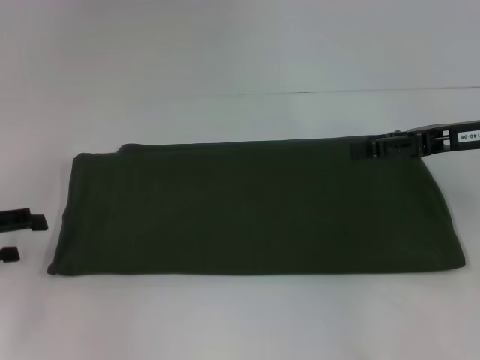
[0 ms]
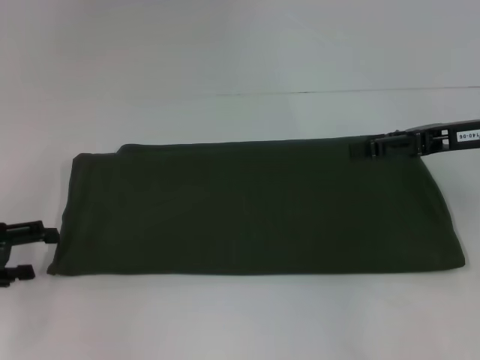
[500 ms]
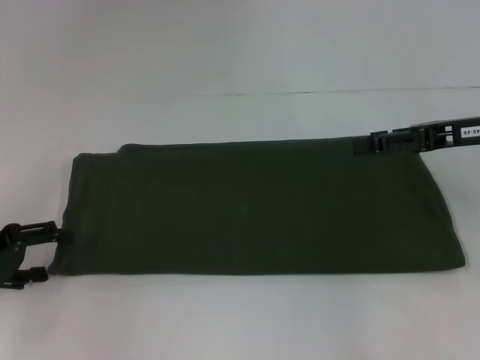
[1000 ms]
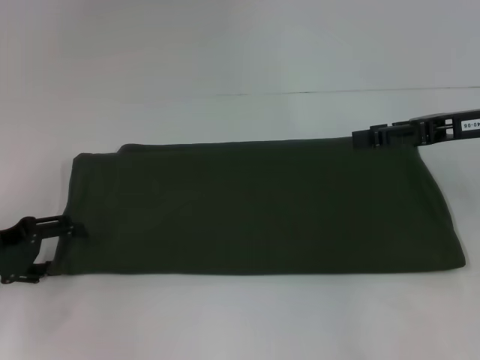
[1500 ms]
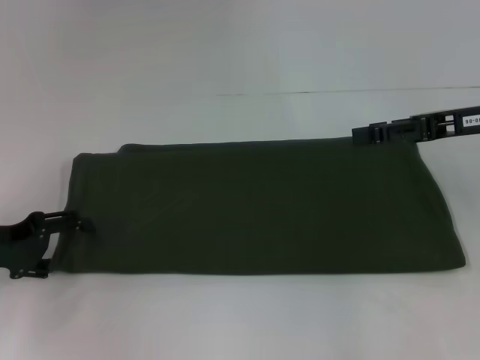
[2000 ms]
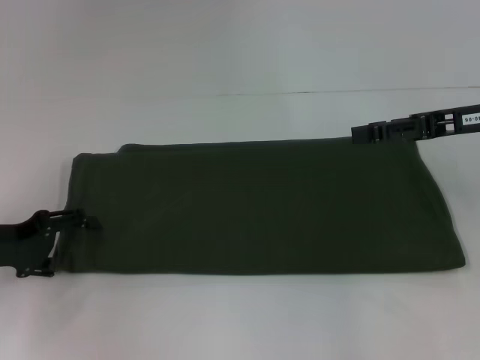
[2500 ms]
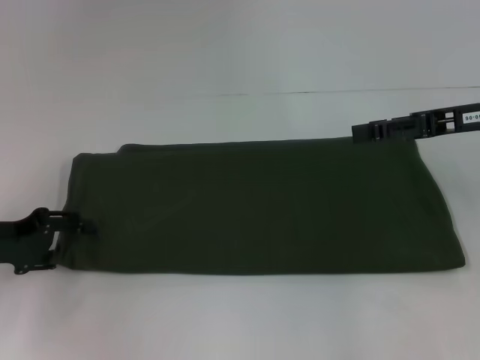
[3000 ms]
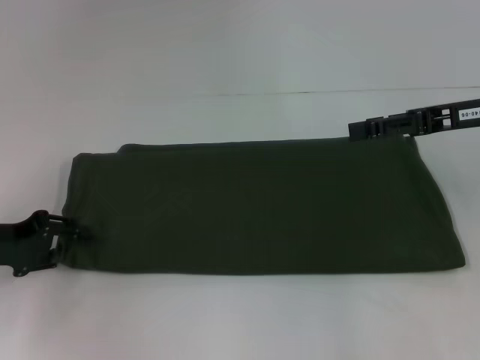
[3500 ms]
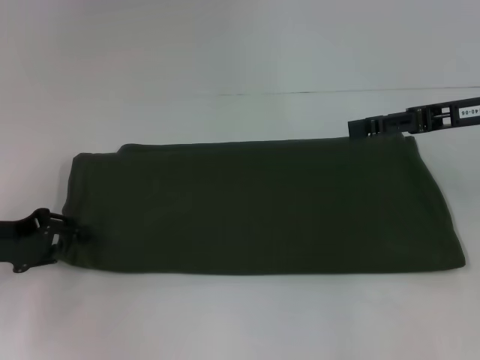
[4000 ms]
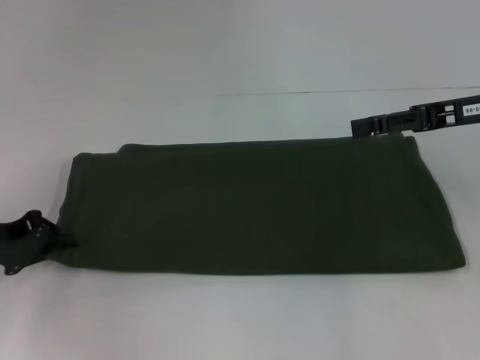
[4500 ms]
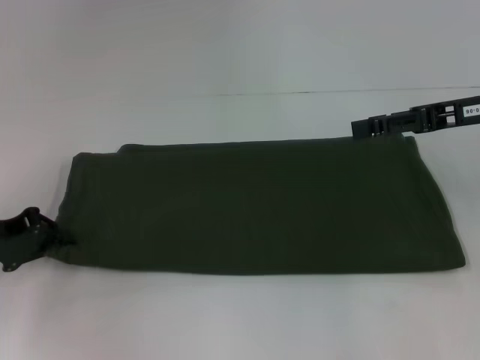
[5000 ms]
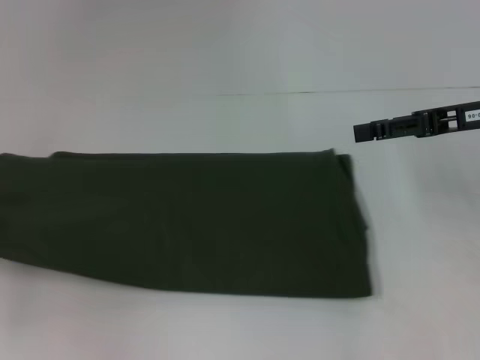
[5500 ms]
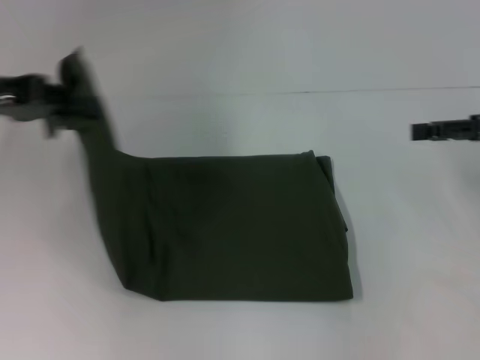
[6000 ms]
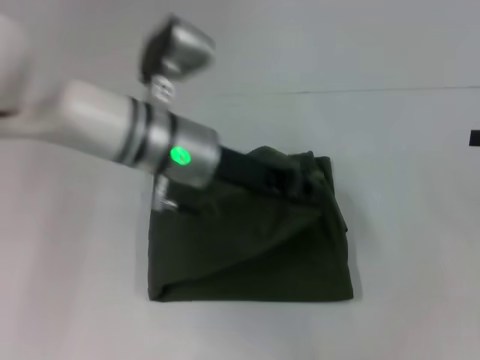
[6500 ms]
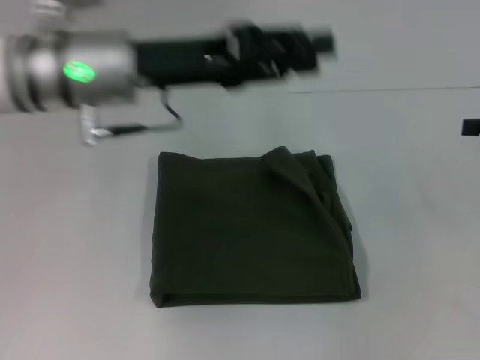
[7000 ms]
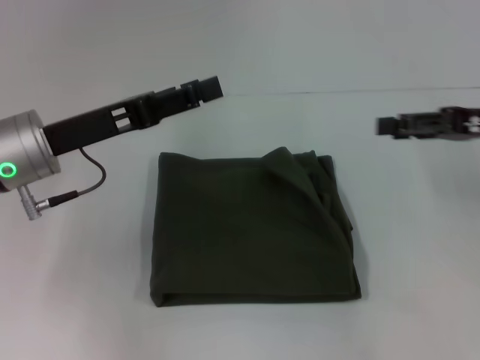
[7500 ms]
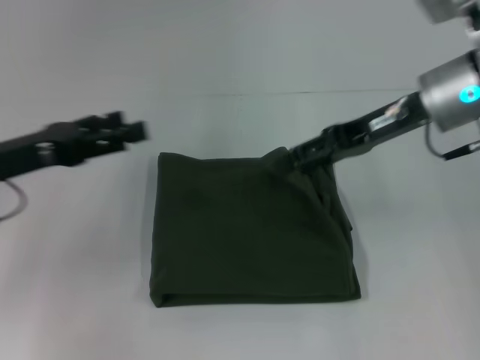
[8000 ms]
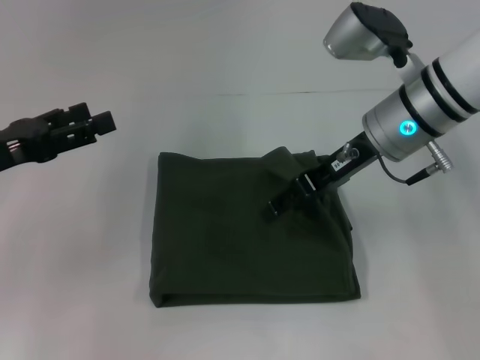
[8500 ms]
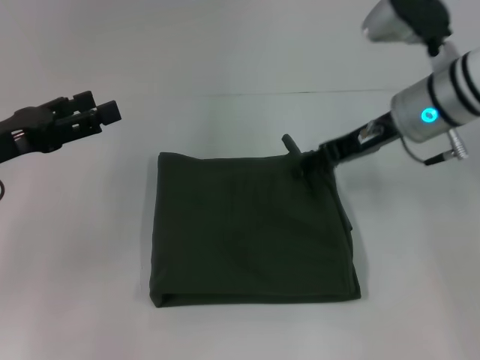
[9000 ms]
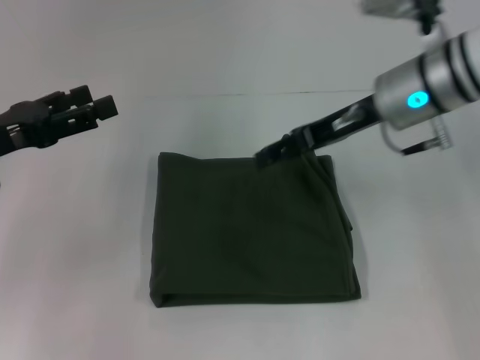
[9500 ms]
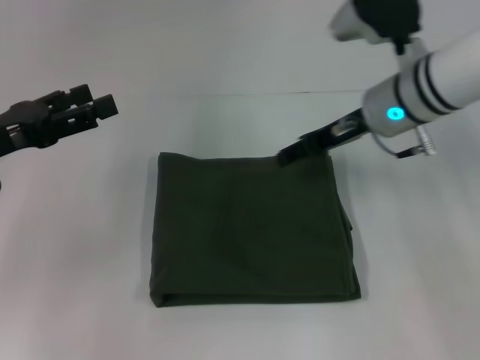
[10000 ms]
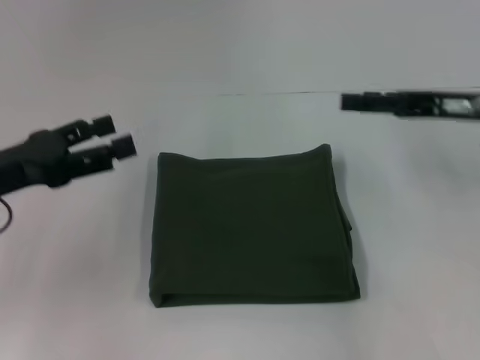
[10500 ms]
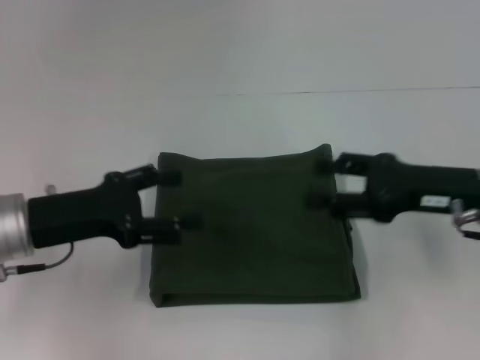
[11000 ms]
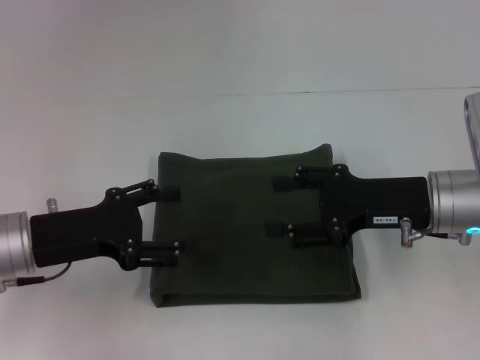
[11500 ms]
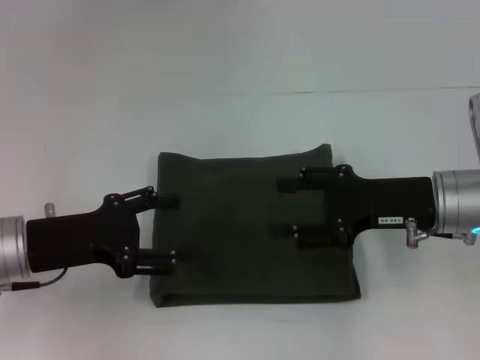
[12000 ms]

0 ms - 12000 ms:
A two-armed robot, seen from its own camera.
Step, 0 ms - 6500 ms: Fold the clothes with your left hand.
0 ms - 2000 ms: The left gripper ends up some 5 cm from where it was.
2000 ms - 4000 ms: The left gripper closes.
4000 ms - 6000 ms: The right gripper goes approximately 5 cm to the right; the left gripper heads upward, covering approximately 15 cm.
6000 ms - 8000 ms: The right gripper moves to the left, roughly 15 cm, while the left gripper shifts approximately 10 cm downward, reaches about 20 cm to the right, then returns, and opens.
8000 ms - 10000 ms: The right gripper changes place by about 5 cm.
10000 ms - 12000 ms: The left gripper travels to the right and downward by approximately 10 cm, while the right gripper is displaced backward and to the right by about 10 cm.
